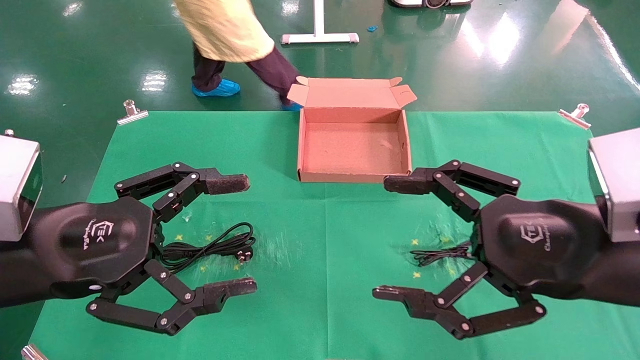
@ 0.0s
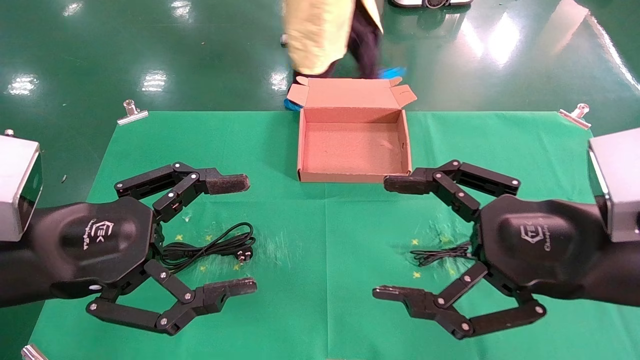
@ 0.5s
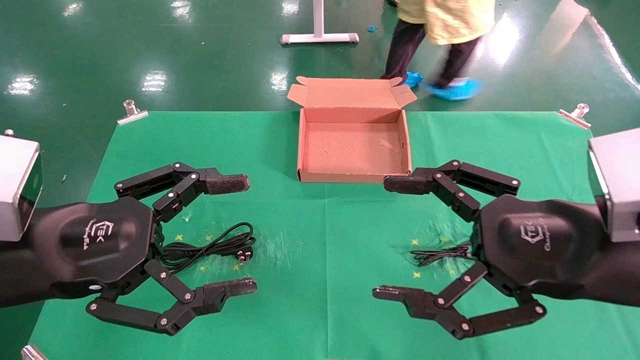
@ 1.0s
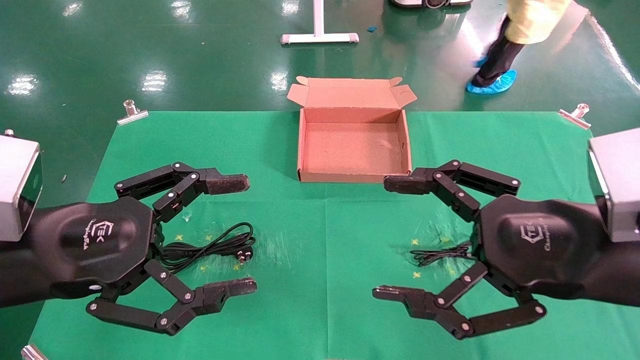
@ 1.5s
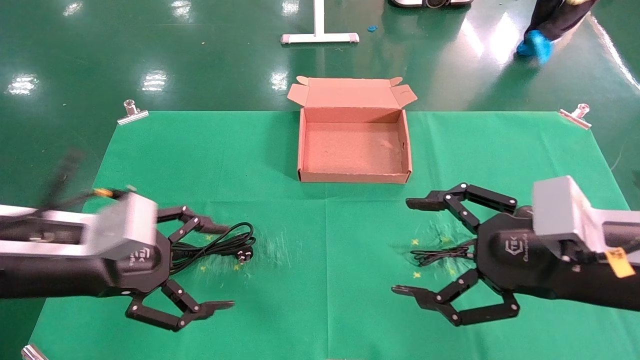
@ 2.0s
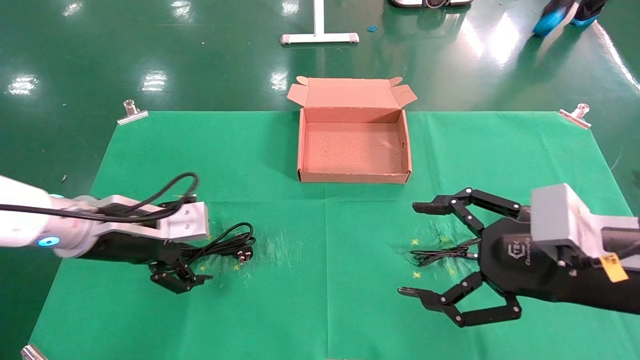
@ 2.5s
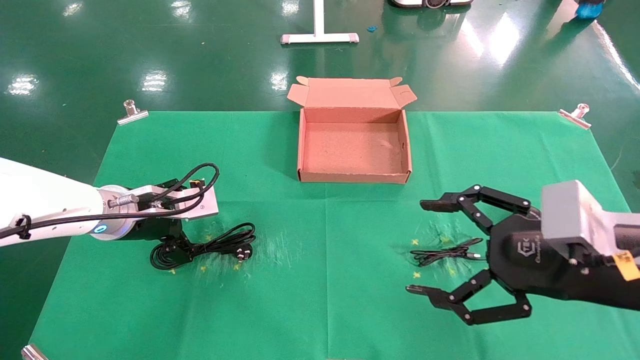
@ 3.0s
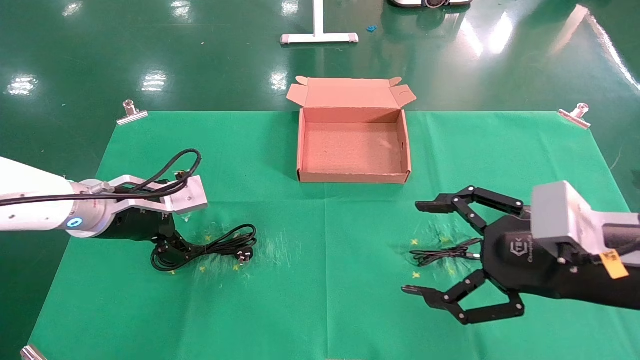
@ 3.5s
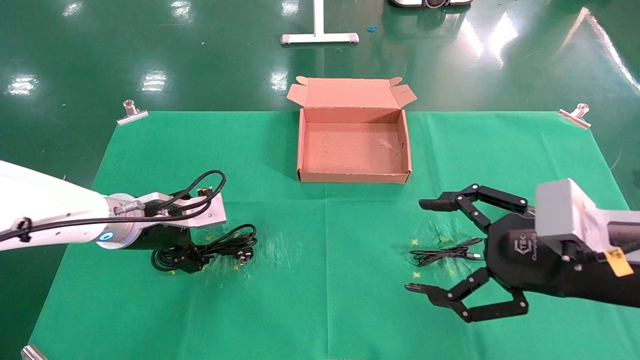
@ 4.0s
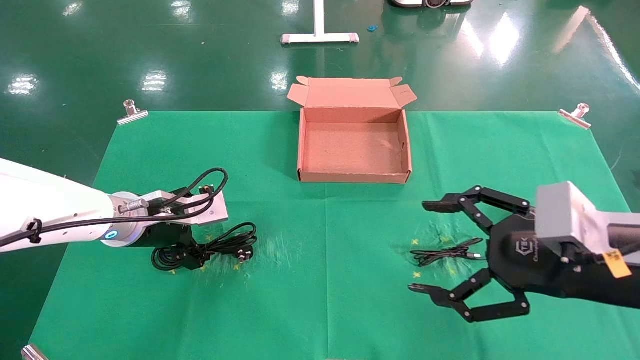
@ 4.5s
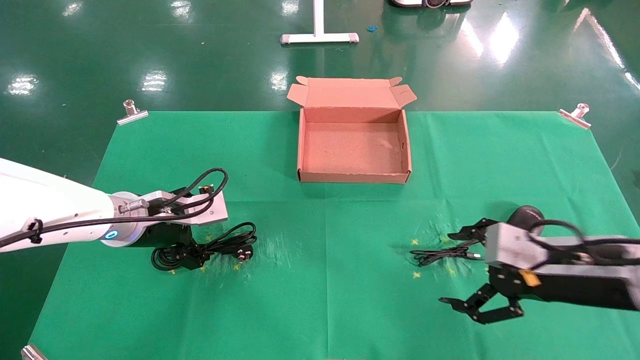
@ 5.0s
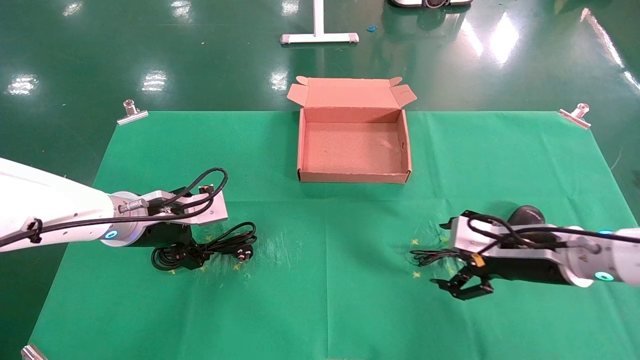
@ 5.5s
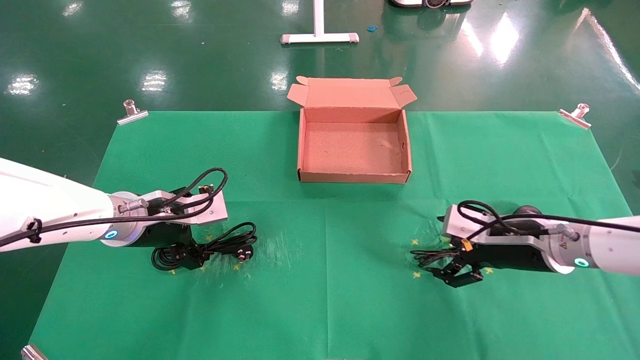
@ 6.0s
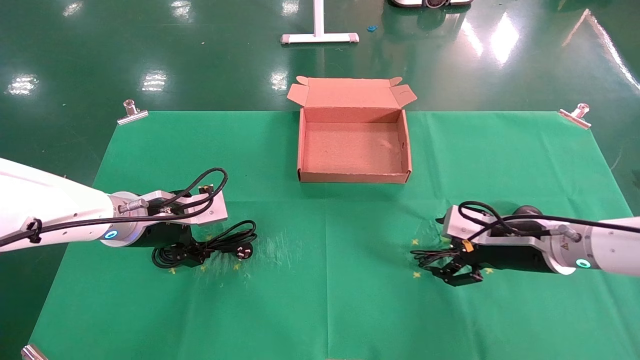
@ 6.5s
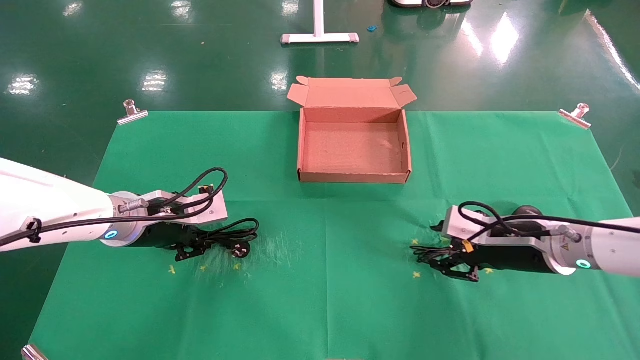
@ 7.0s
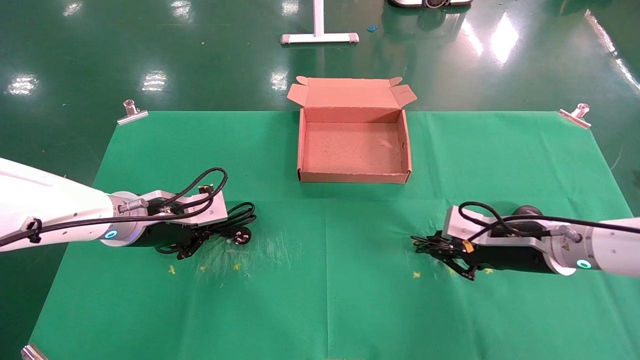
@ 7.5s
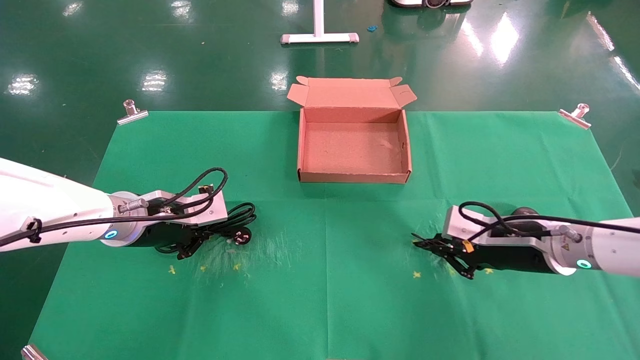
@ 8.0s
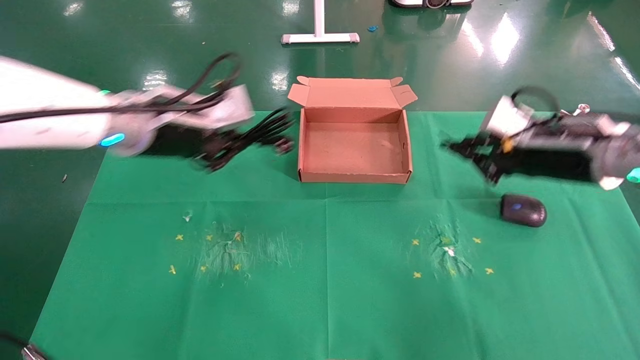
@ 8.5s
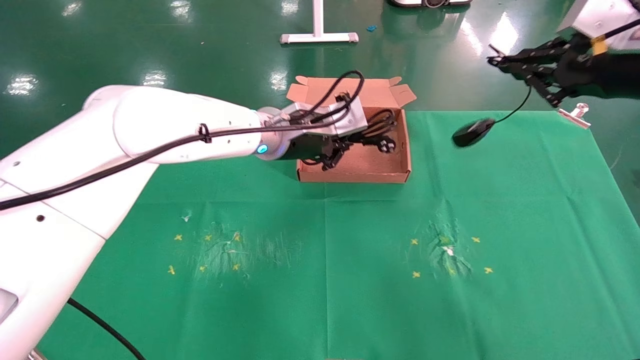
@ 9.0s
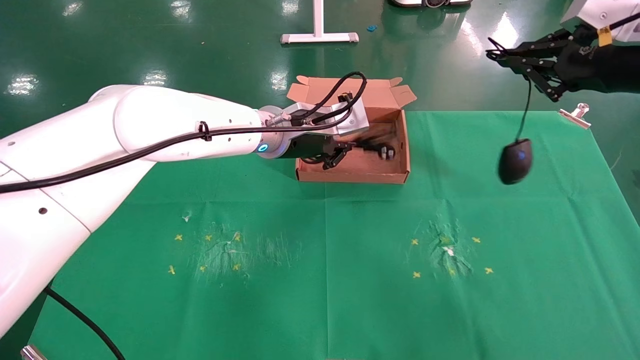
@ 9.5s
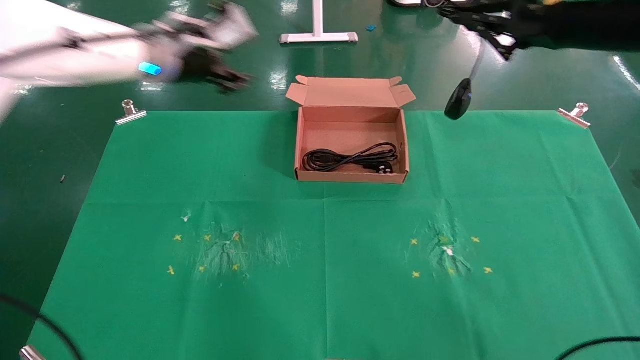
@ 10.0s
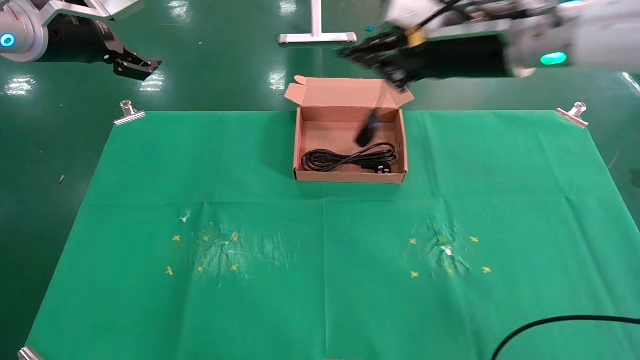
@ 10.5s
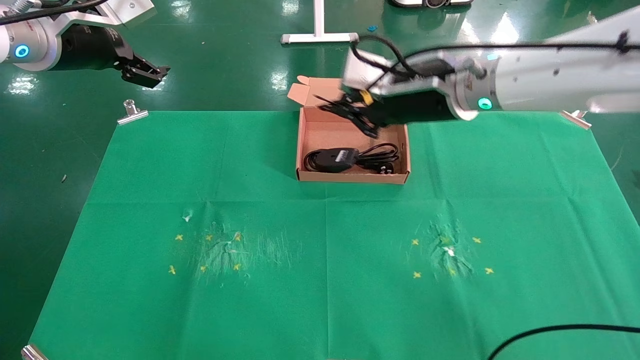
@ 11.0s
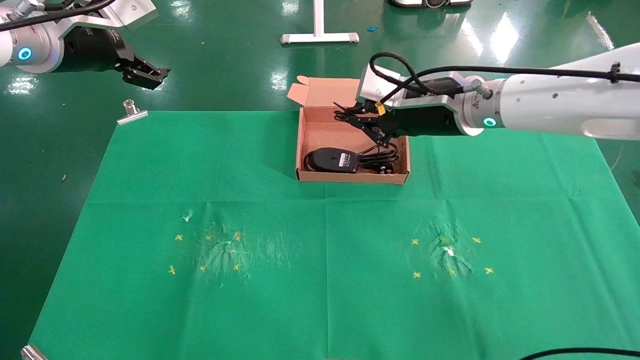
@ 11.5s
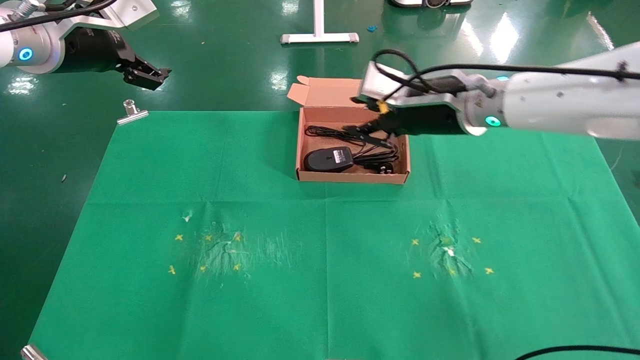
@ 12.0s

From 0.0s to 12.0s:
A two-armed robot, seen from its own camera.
Task of the whole recording: grasp data cable left put into box grasp mouse right put into box.
Step, from 2.0s to 8.0s: Simultaneously pick up the mouse and power cord from the accessory packaging area.
Step, from 8.5s to 11.5s: Place the mouse and power cord into the box.
From 0.0s to 2.0s: The left gripper travels forward by about 5 cm.
From 2.0s to 4.0s: The left gripper travels forward by approximately 10 cm.
From 4.0s to 6.0s: The right gripper shifts roughly 15 cm forward and downward.
From 6.0s to 8.0s: The right gripper closes, while the left gripper closes its fingers.
From 8.0s to 10.0s: The right gripper goes roughly 25 cm upward. The left gripper is displaced upward and forward by approximately 20 cm, and travels to the right and back again, about 20 cm each way.
From 10.0s to 12.0s: The left gripper is displaced to the left and backward by roughly 10 cm, and opens its fingers. The right gripper shifts approximately 20 cm to the left, downward and forward.

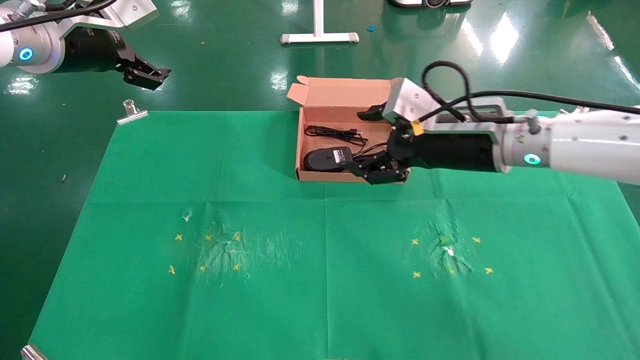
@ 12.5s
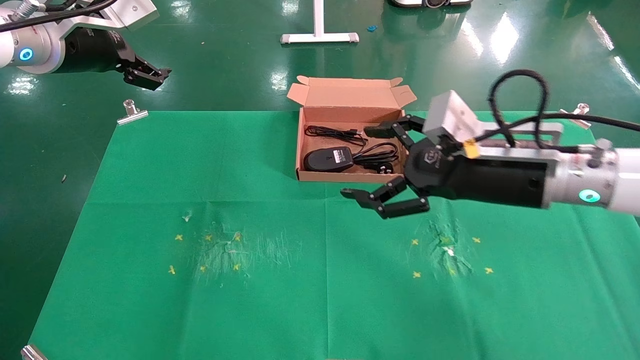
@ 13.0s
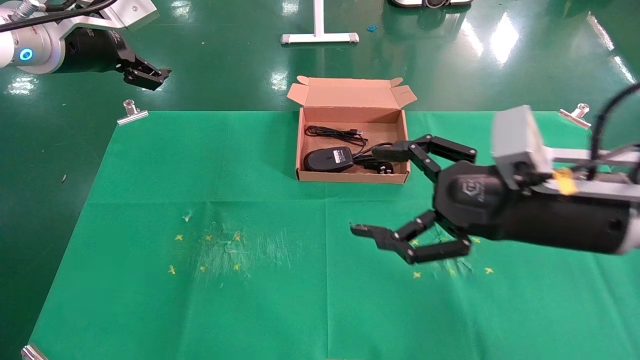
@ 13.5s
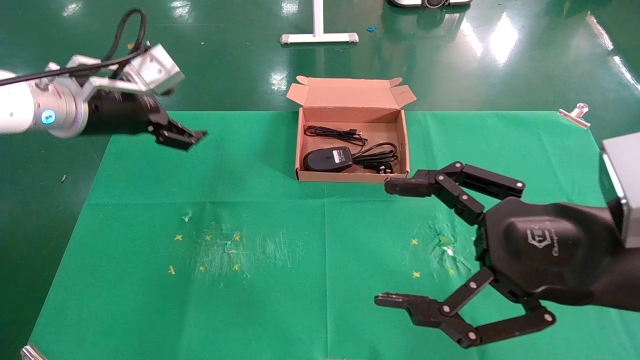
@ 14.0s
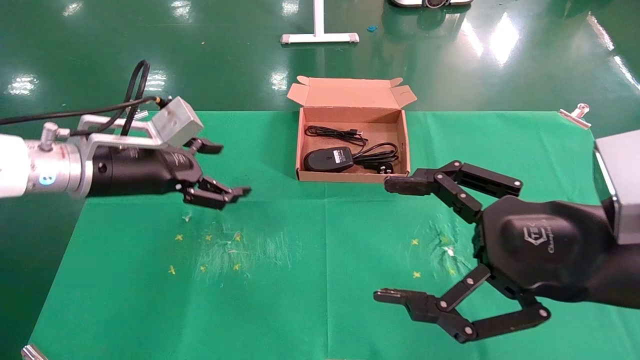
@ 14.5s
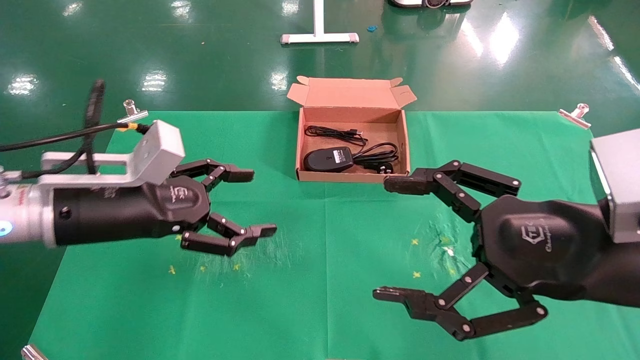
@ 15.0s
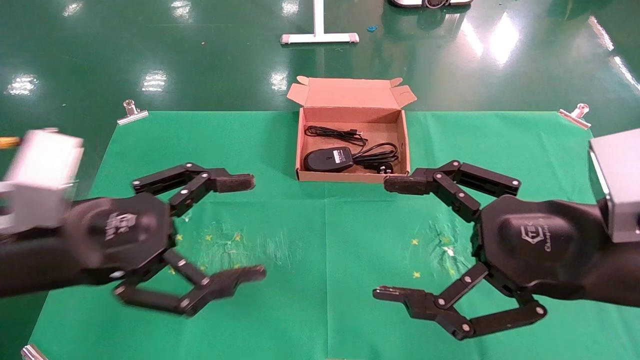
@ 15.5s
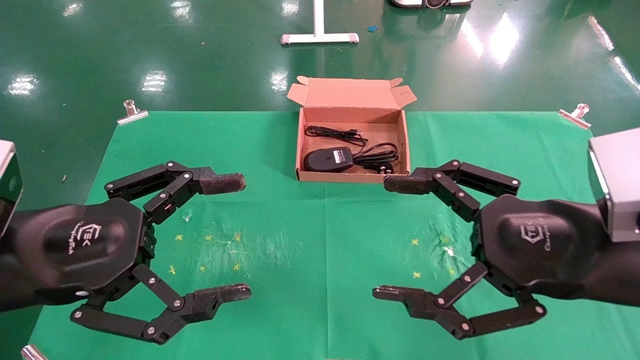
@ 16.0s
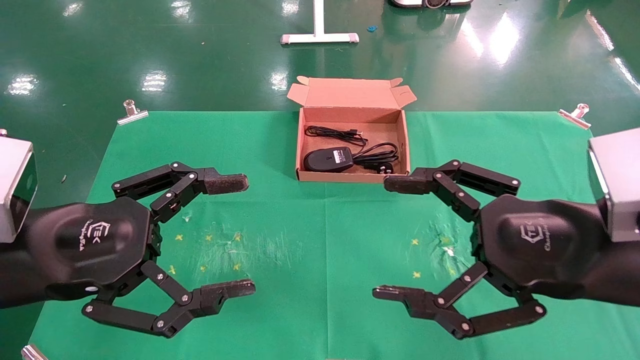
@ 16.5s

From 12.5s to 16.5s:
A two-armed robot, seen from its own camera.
Task of the whole recording: grasp data cable left put into box grasp mouse right put into box.
From 12.5s to 14.5s: The right gripper shifts about 20 cm backward. The left gripper travels downward by approximately 15 cm.
From 14.5s to 16.5s: The left gripper travels backward by approximately 15 cm.

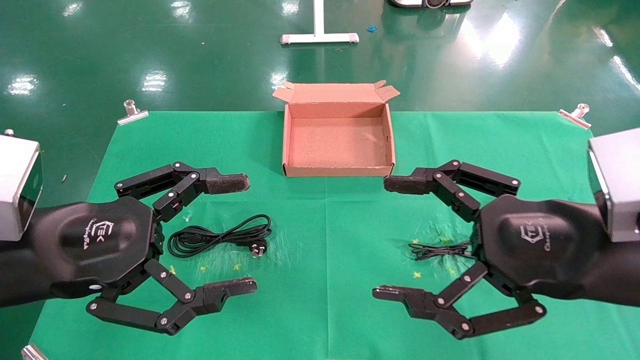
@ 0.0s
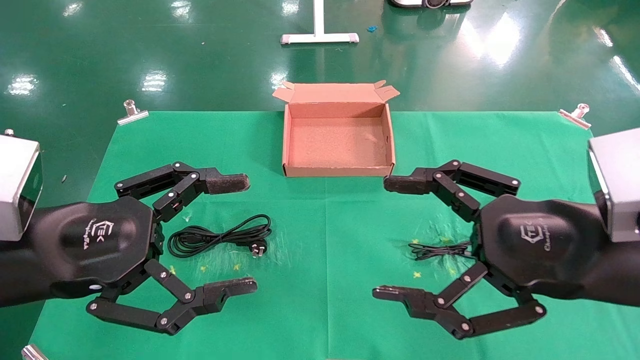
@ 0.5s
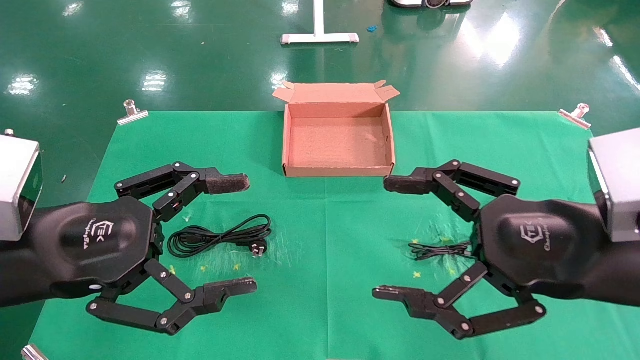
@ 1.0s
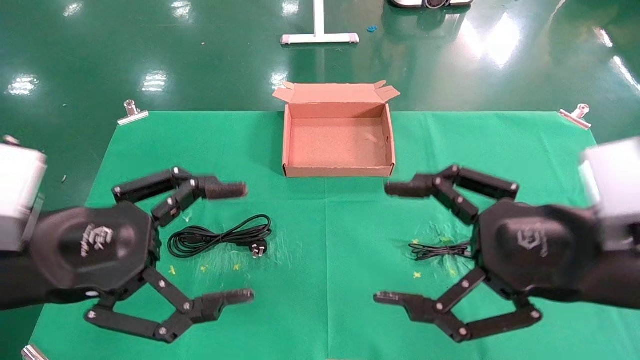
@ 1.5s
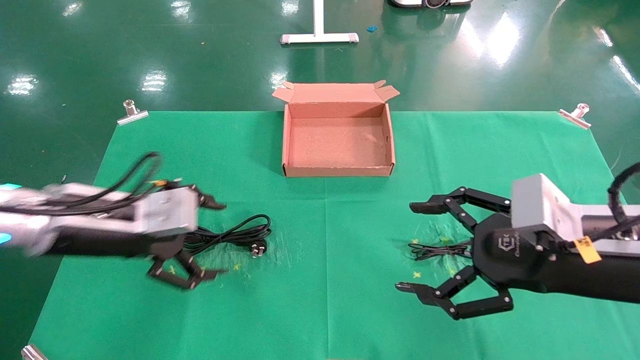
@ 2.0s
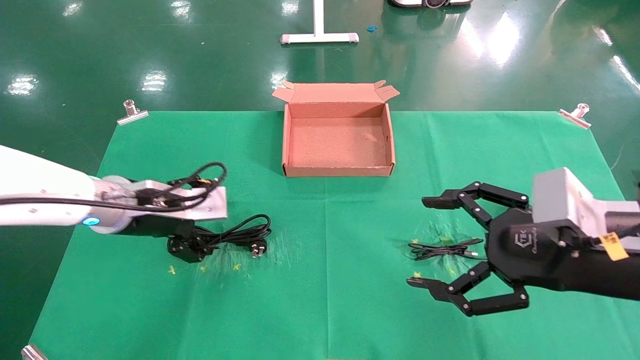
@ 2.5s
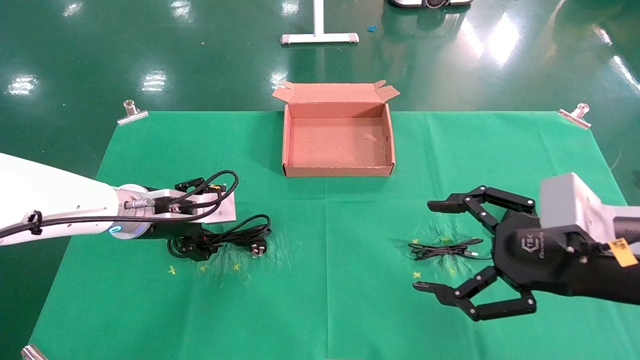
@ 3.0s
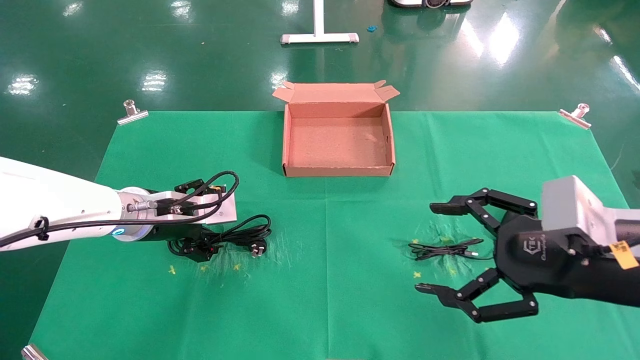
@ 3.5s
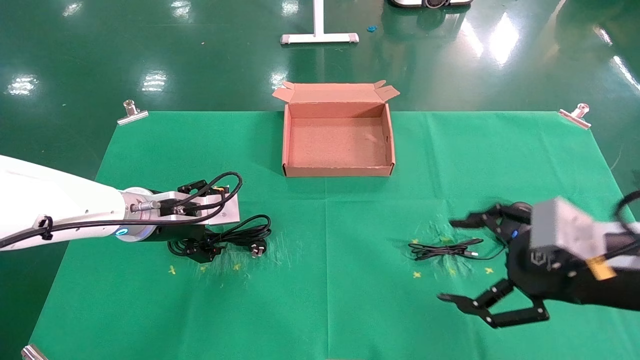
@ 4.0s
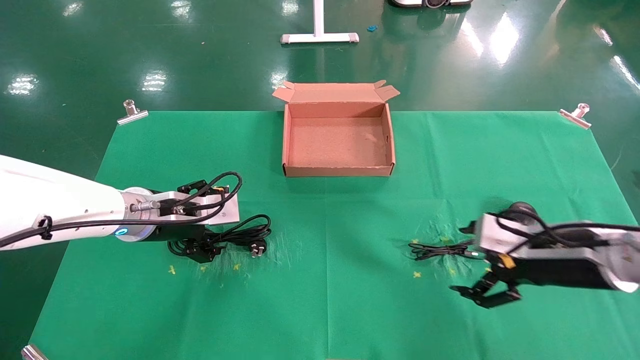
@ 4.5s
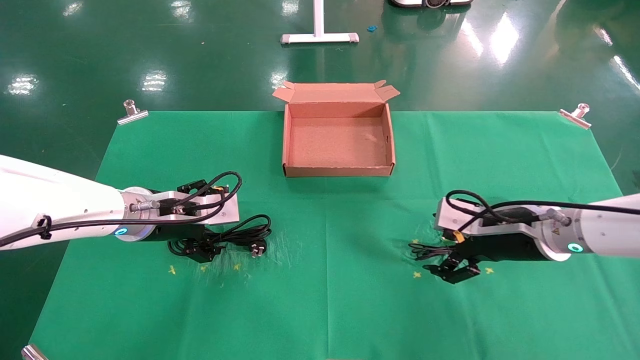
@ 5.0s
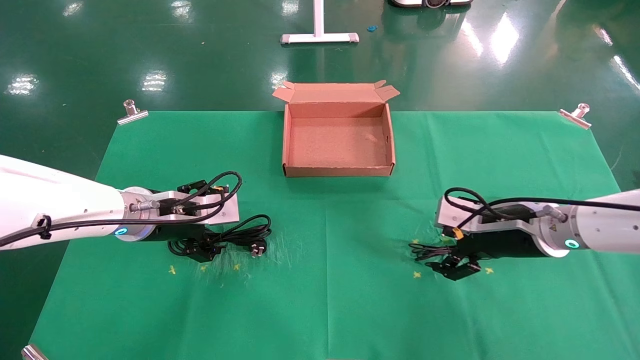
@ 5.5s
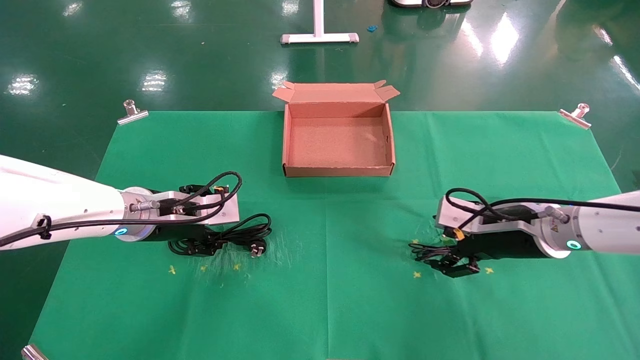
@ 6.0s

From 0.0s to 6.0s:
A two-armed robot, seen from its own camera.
Task of the whole recording: grasp data cable left put into box grasp mouse right put into box.
From 0.0s to 2.0s: The left gripper moves forward, some 10 cm.
From 2.0s to 4.0s: The left gripper shifts approximately 10 cm forward.
From 4.0s to 6.0s: The right gripper is displaced forward by about 15 cm.
